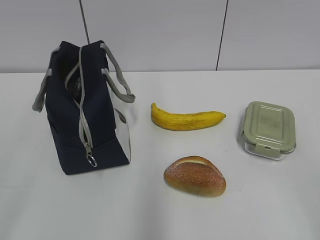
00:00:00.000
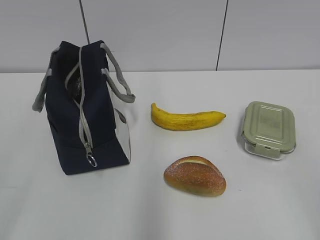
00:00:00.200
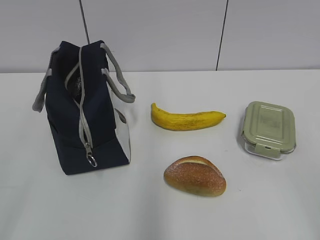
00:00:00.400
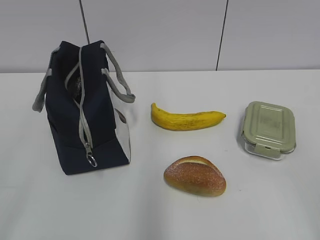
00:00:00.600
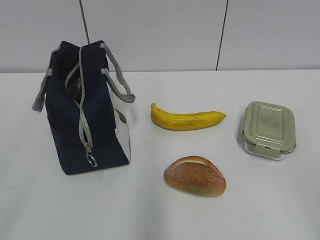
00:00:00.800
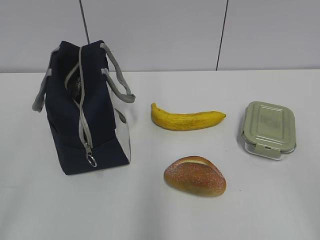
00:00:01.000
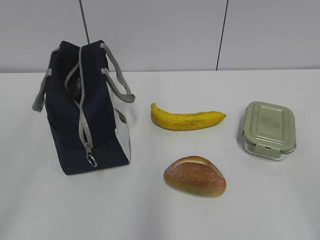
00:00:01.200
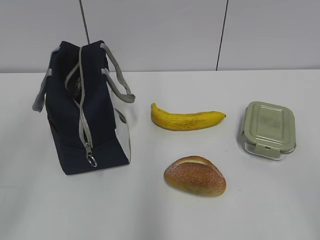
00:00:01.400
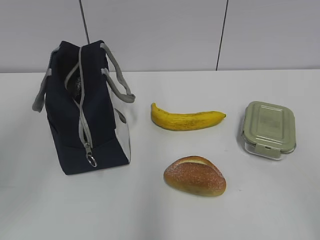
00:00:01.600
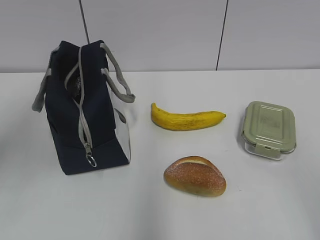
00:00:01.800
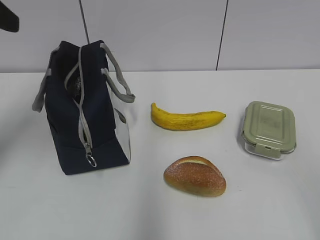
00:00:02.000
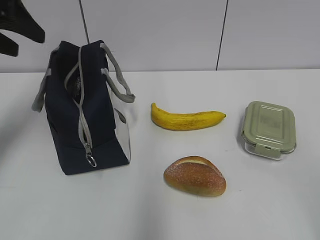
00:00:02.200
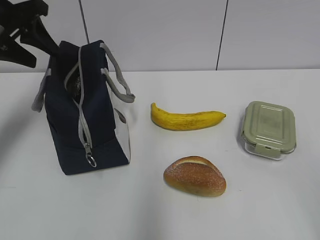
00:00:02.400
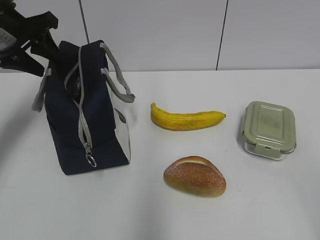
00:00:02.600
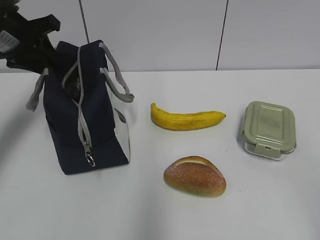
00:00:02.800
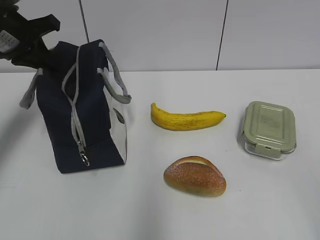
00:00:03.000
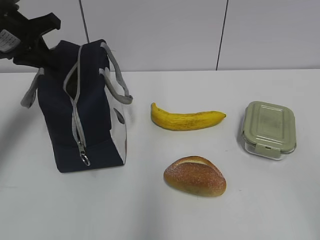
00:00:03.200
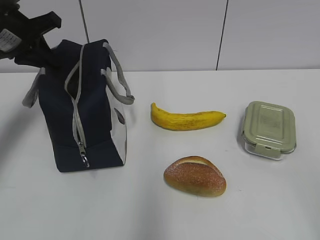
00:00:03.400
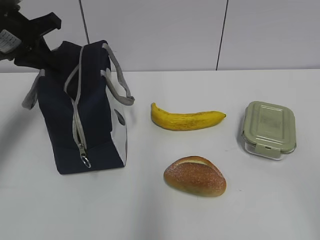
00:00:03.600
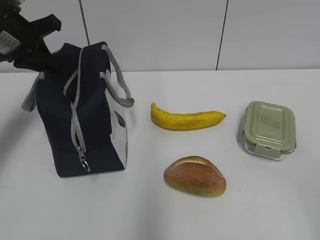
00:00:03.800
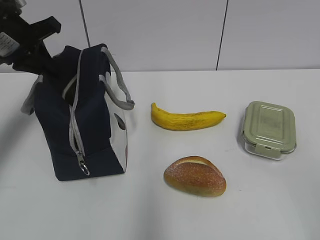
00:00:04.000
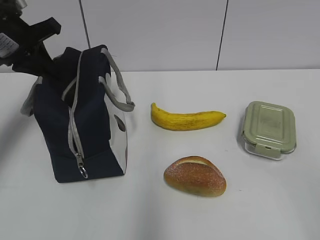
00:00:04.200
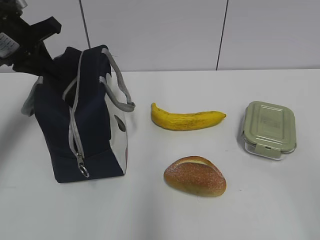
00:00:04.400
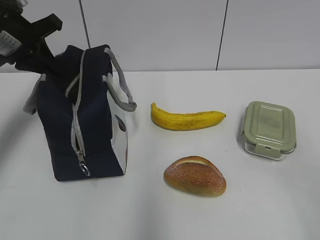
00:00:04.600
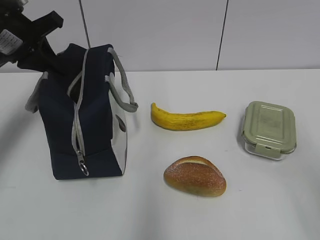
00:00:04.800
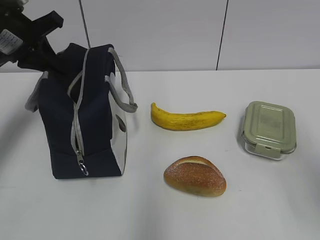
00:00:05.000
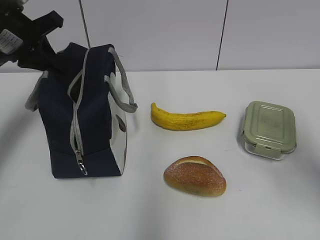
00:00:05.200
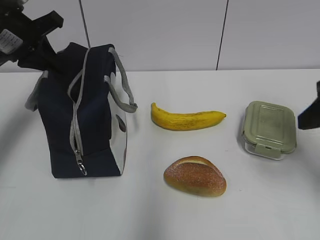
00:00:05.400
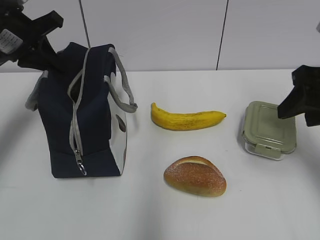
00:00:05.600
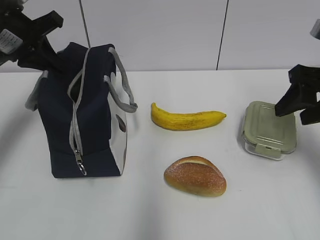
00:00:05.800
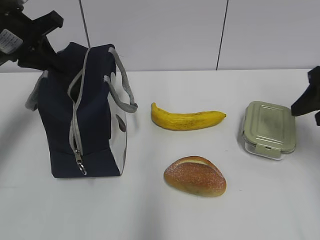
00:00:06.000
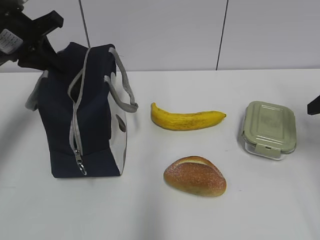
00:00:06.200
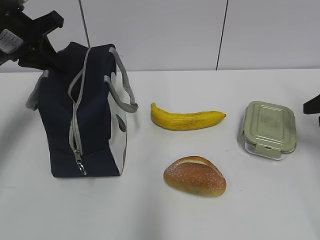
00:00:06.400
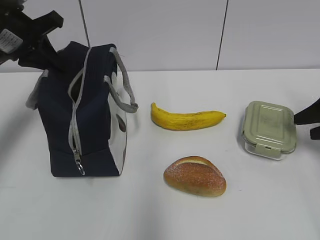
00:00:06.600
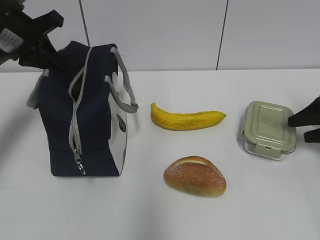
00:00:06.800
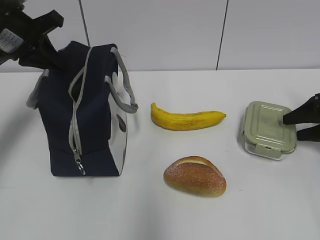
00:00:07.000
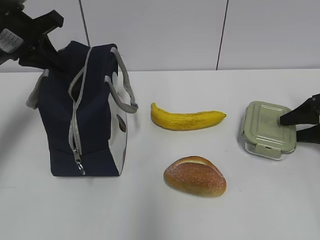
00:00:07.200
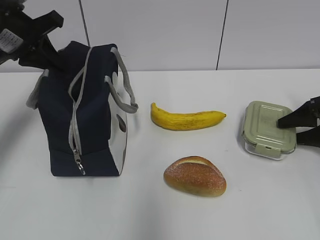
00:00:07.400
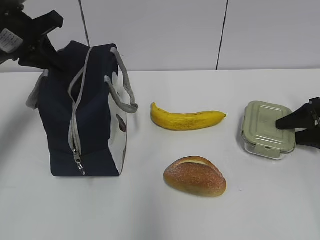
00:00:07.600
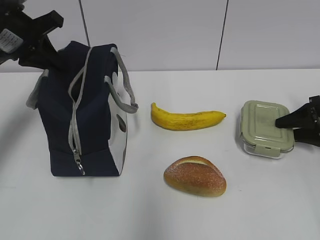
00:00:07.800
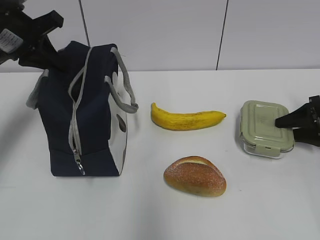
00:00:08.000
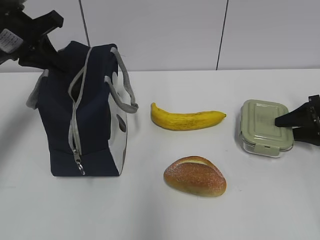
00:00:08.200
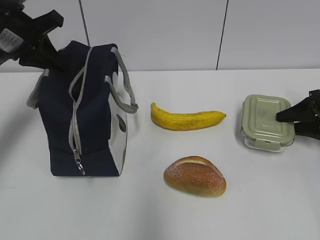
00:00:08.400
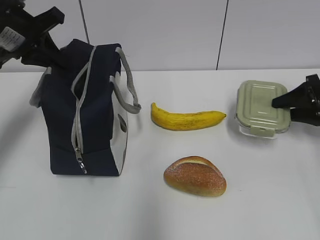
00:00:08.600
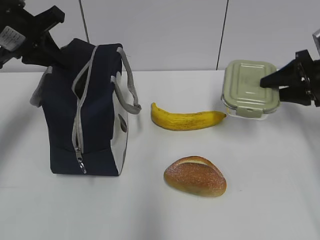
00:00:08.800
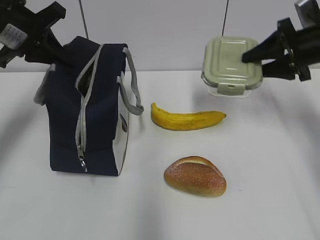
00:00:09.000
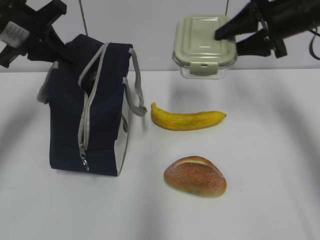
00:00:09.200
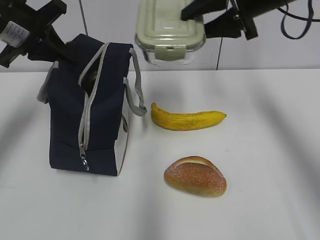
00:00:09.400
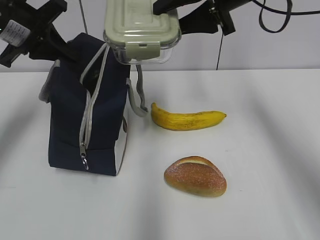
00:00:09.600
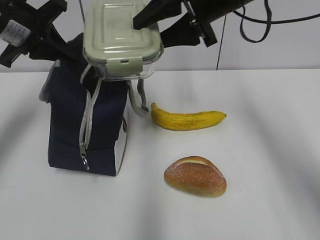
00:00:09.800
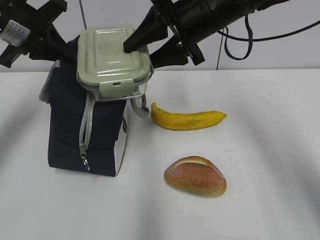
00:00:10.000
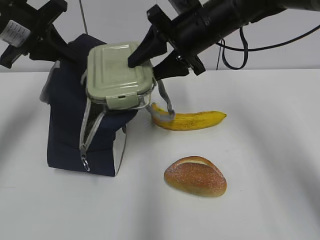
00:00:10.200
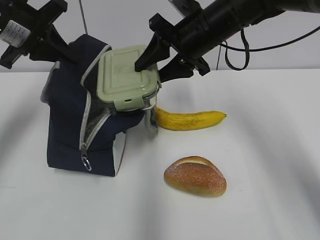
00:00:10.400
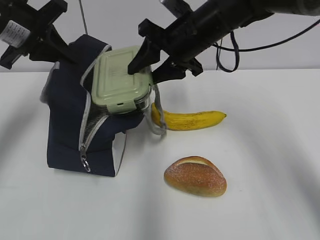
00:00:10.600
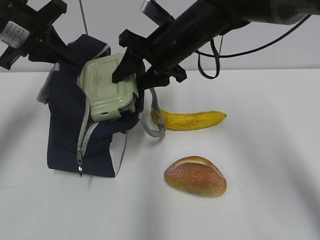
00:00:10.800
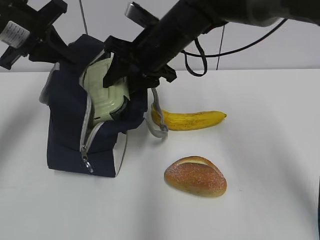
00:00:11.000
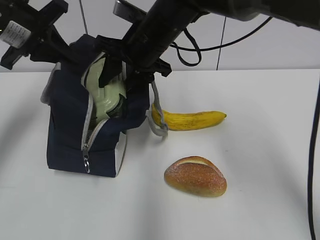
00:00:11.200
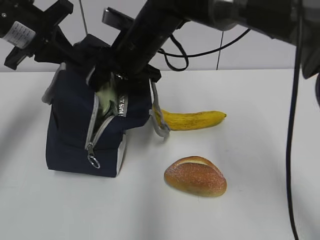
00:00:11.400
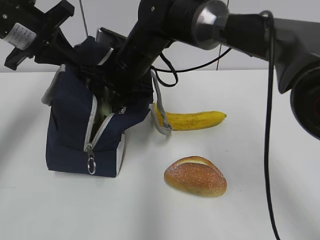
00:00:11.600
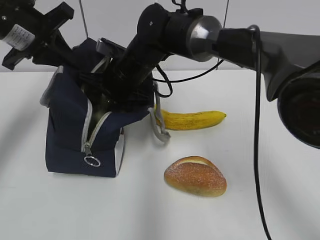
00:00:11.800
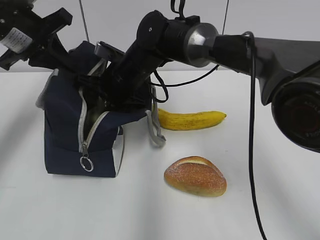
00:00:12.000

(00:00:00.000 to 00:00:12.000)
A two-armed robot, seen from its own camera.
Step, 00:00:00.000 - 00:00:08.200: Grab the lunch box with your right hand.
00:00:01.600 - 00:00:03.000: The left gripper travels forward by roughly 30 cm, and closes up.
00:00:03.000 - 00:00:04.400: The grippers stay close to where they were, moving slightly.
00:00:04.400 - 00:00:06.000: The right gripper goes some 30 cm forward.
00:00:06.000 - 00:00:07.600: The right gripper travels downward, to the right and forward by about 20 cm.
00:00:07.600 - 00:00:09.000: The right gripper is displaced upward and to the left by roughly 15 cm.
00:00:09.000 - 00:00:10.400: The right gripper shifts about 20 cm to the left.
00:00:10.400 - 00:00:12.000: The right gripper heads to the left and downward, covering some 15 cm.

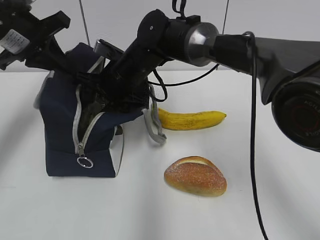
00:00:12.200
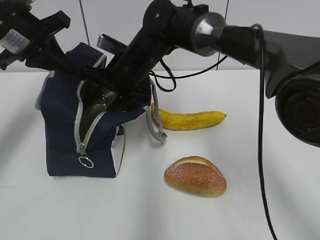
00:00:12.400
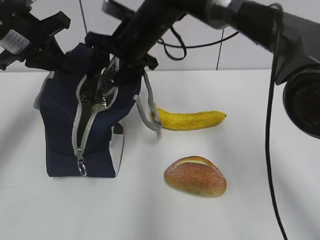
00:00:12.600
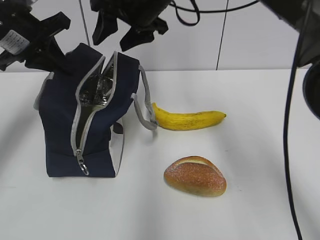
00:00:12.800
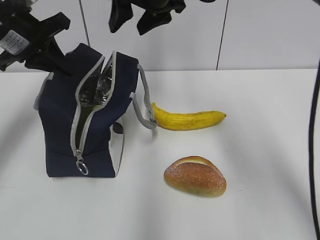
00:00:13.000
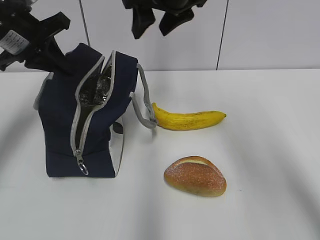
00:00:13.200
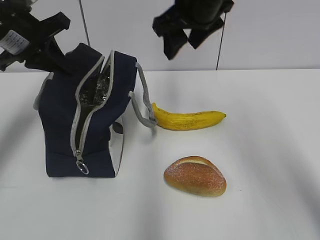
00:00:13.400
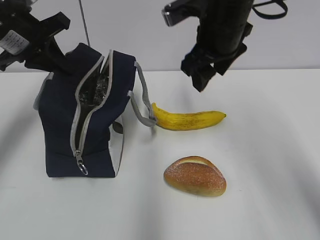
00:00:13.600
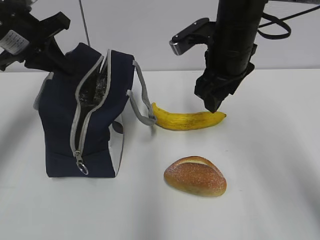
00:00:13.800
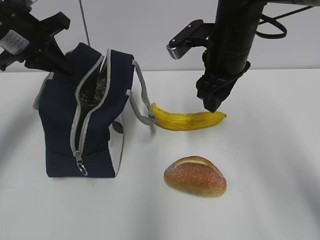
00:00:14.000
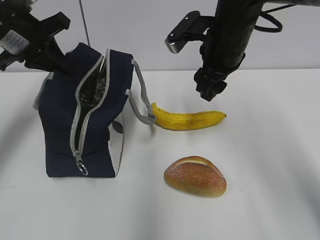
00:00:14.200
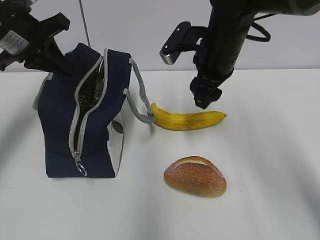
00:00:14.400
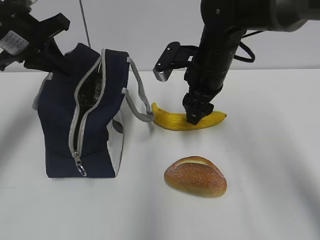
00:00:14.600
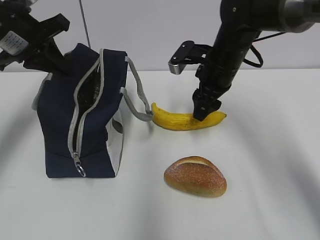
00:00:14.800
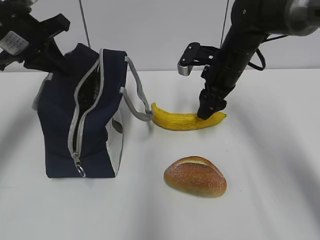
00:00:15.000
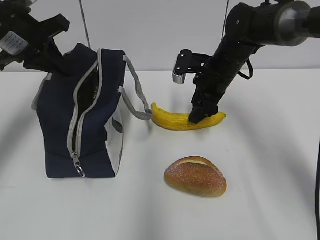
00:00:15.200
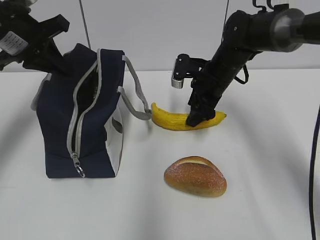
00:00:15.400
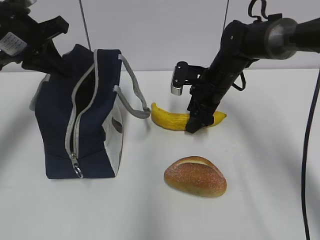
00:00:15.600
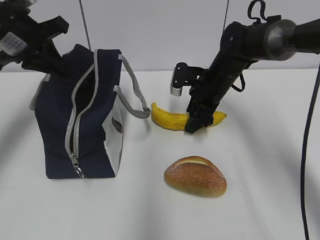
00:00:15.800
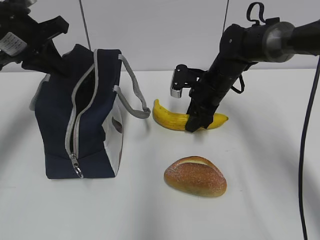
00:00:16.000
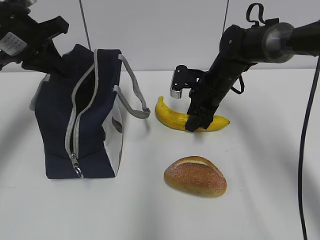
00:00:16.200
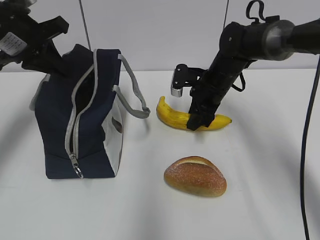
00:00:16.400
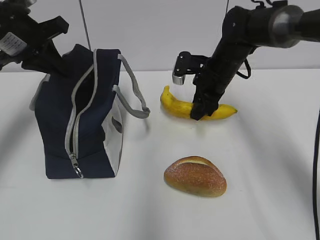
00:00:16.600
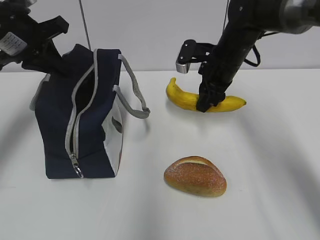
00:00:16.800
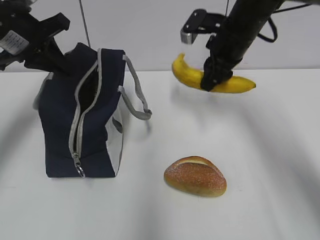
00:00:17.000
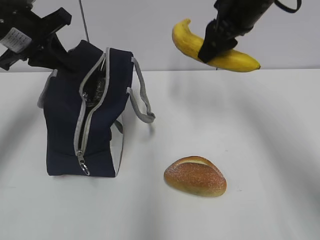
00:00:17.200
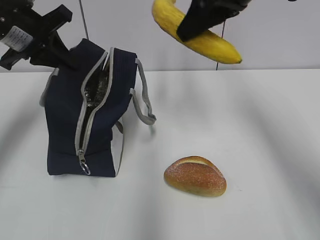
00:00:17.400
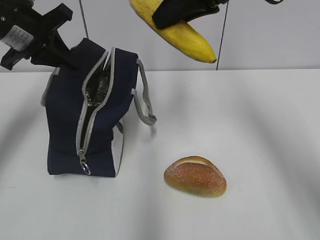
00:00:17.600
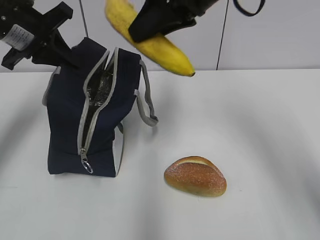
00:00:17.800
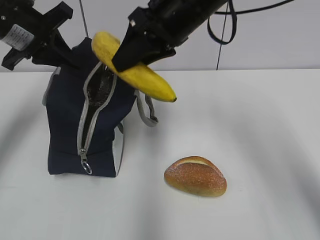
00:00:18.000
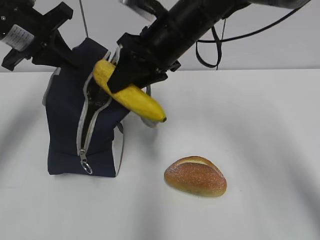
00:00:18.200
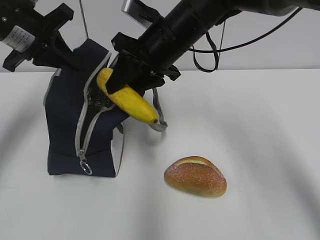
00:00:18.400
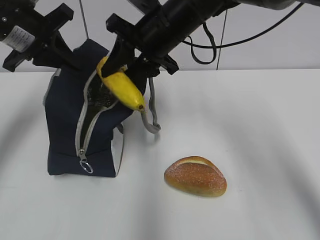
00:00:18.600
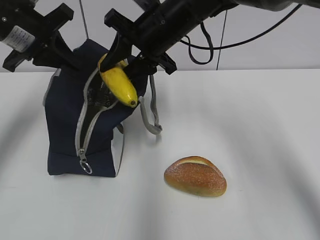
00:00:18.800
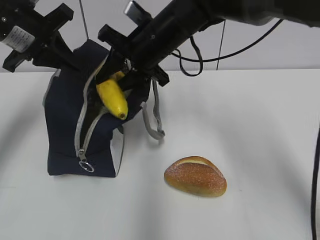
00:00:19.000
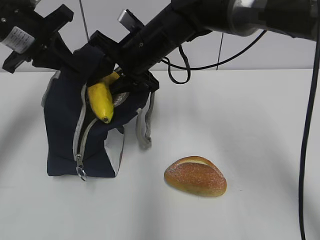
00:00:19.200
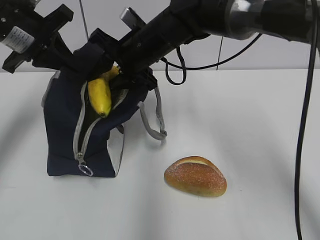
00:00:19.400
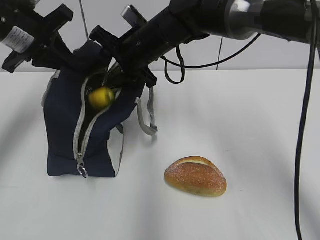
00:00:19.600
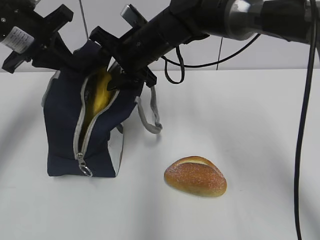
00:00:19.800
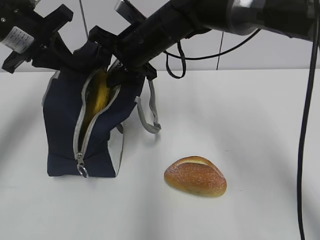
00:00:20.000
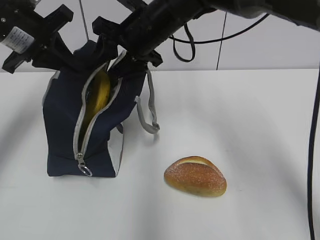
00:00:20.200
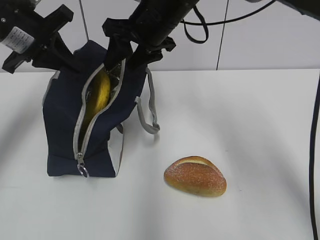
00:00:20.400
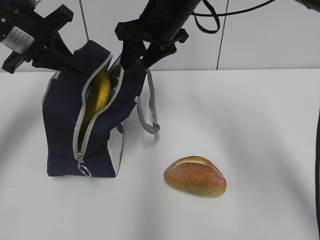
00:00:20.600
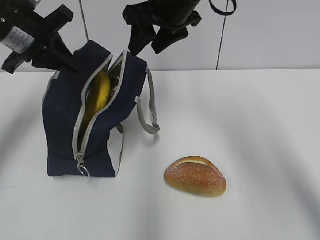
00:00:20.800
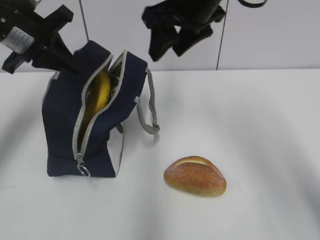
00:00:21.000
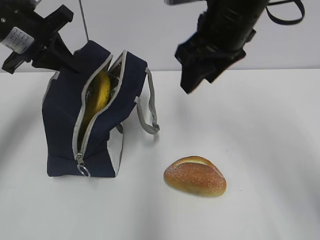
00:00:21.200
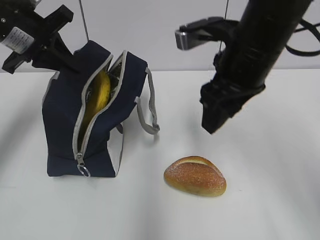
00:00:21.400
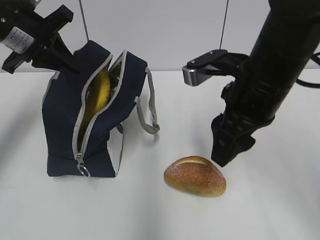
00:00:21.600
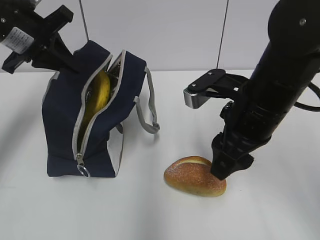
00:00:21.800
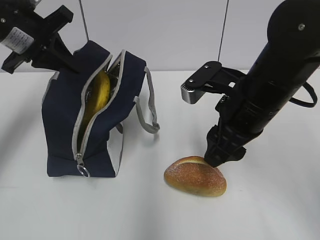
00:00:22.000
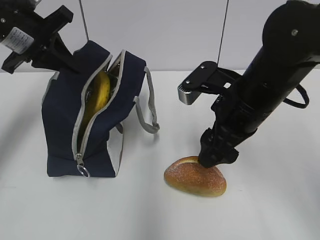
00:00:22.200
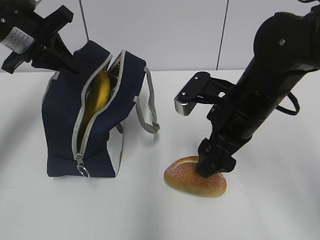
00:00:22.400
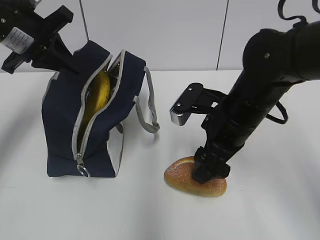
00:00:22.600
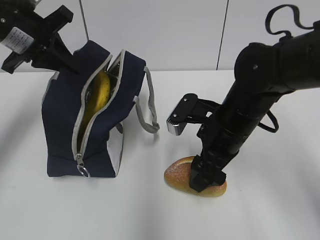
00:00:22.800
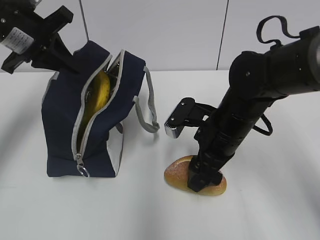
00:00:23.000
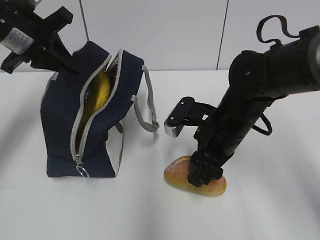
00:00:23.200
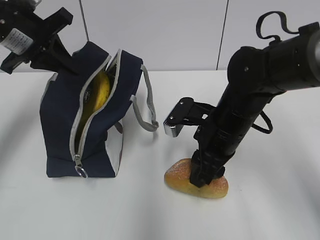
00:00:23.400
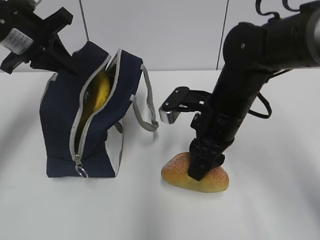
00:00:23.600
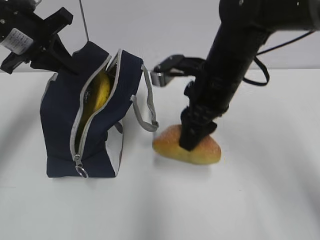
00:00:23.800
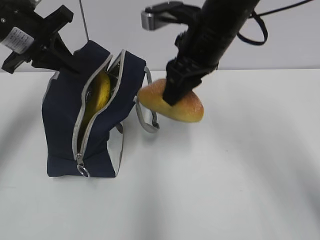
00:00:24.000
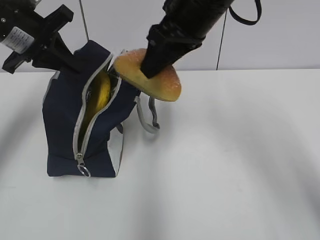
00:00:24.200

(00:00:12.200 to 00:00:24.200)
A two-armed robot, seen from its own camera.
Step, 00:00:12.400 - 00:00:16.200: Grab the banana with your right hand.
Step, 00:00:16.600 - 00:00:20.000: Place it into the bag with your right hand.
Step, 00:00:20.200 - 00:00:23.200: Grab the bread with your right hand.
00:00:12.200 - 00:00:13.800: The right gripper moves to the right and upward, some 20 cm.
00:00:13.800 - 00:00:15.200: The right gripper is displaced downward and forward by about 10 cm.
00:00:15.200 - 00:00:16.600: The grippers move only a little.
00:00:16.600 - 00:00:18.200: The right gripper heads upward, to the left and backward, covering roughly 15 cm.
00:00:18.200 - 00:00:19.800: The right gripper shifts by some 10 cm.
00:00:19.800 - 00:00:21.200: The right gripper is displaced to the right, backward and upward by roughly 15 cm.
00:00:21.200 - 00:00:22.600: The right gripper travels downward by approximately 15 cm.
00:00:22.600 - 00:00:24.200: The right gripper travels upward by approximately 15 cm, and closes.
